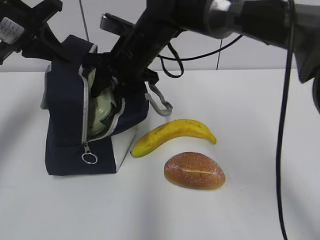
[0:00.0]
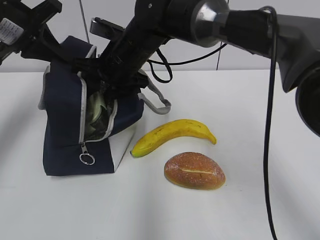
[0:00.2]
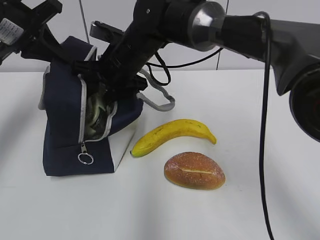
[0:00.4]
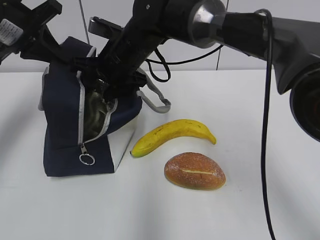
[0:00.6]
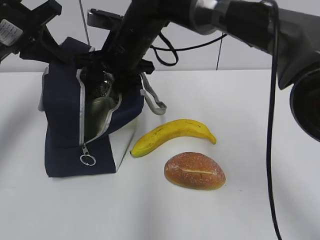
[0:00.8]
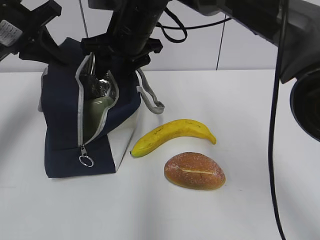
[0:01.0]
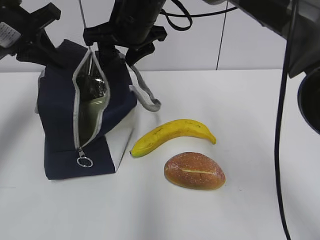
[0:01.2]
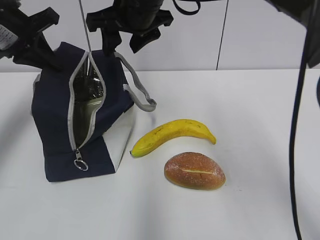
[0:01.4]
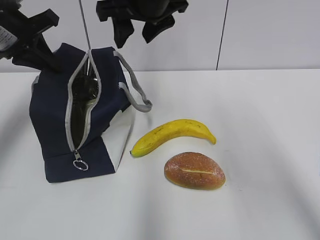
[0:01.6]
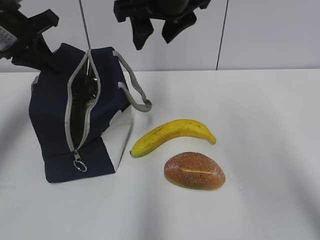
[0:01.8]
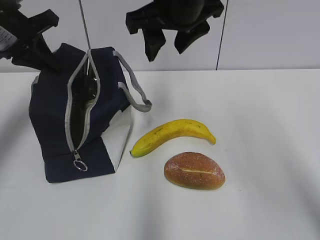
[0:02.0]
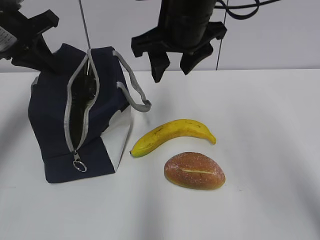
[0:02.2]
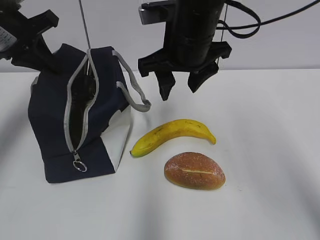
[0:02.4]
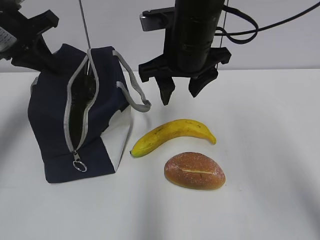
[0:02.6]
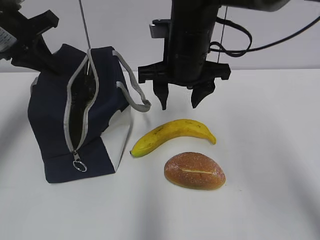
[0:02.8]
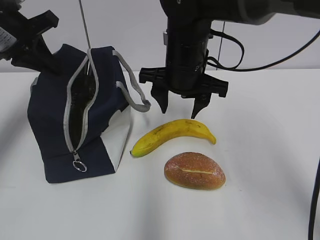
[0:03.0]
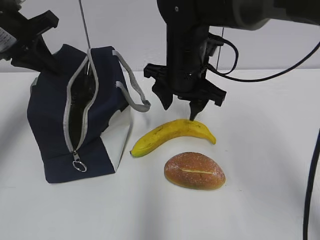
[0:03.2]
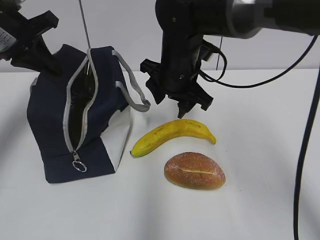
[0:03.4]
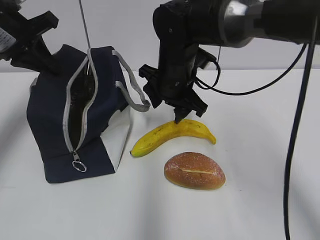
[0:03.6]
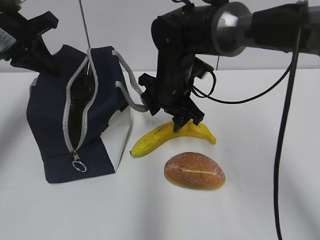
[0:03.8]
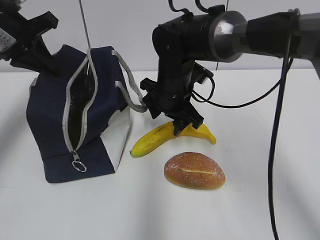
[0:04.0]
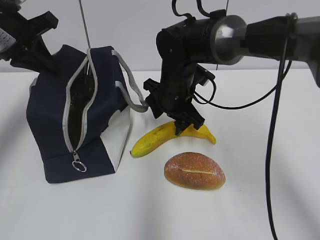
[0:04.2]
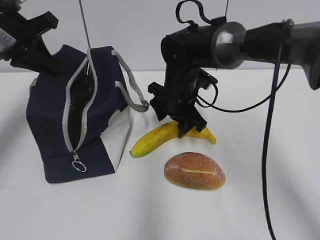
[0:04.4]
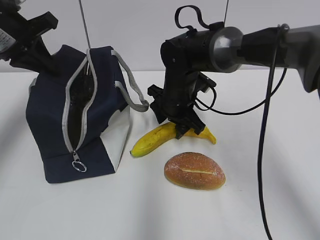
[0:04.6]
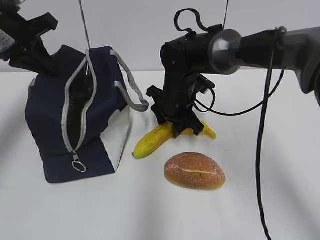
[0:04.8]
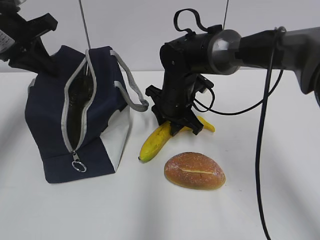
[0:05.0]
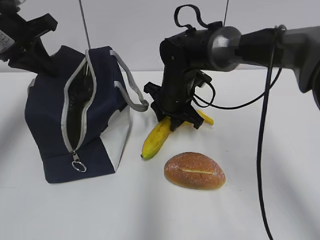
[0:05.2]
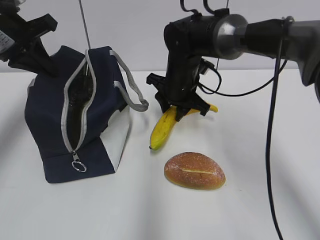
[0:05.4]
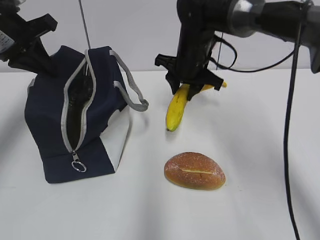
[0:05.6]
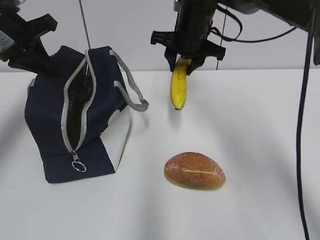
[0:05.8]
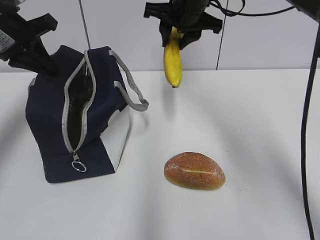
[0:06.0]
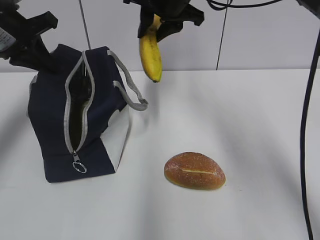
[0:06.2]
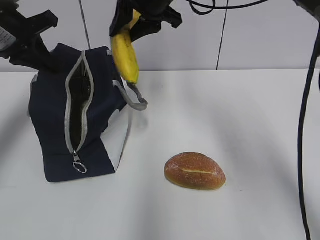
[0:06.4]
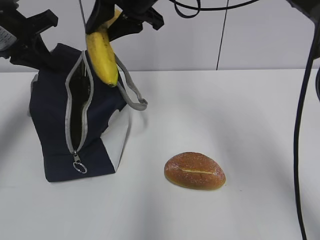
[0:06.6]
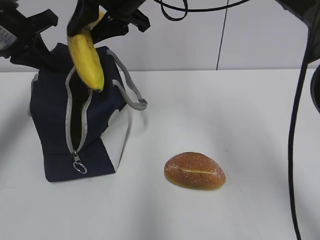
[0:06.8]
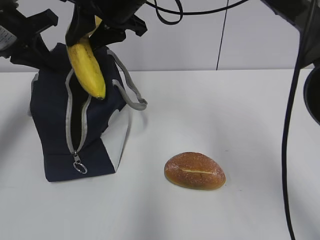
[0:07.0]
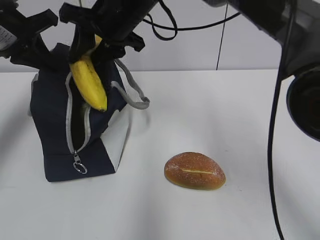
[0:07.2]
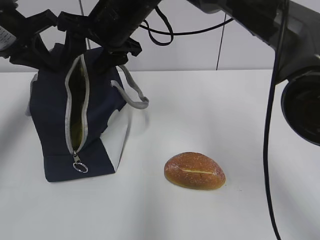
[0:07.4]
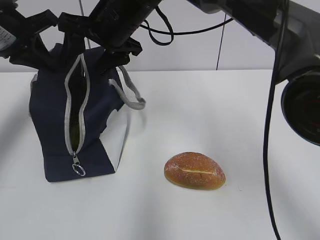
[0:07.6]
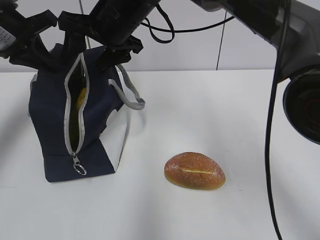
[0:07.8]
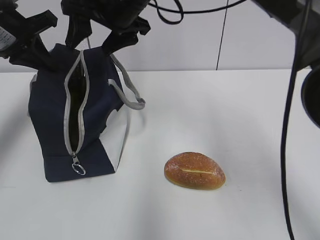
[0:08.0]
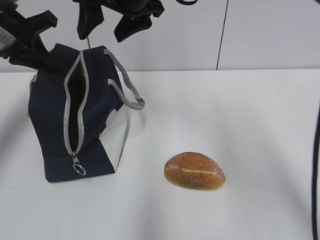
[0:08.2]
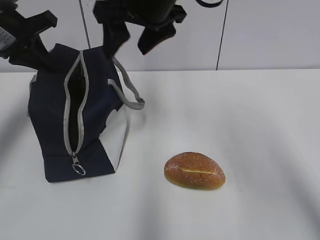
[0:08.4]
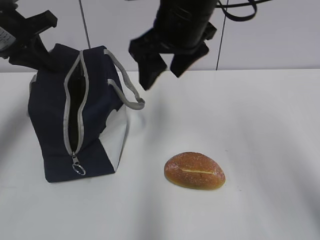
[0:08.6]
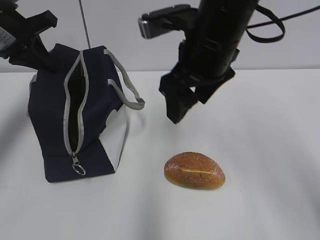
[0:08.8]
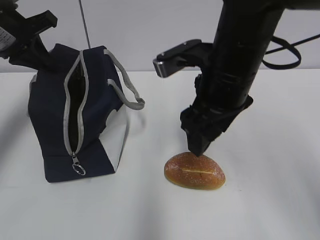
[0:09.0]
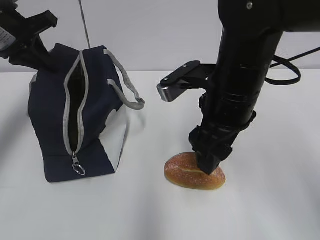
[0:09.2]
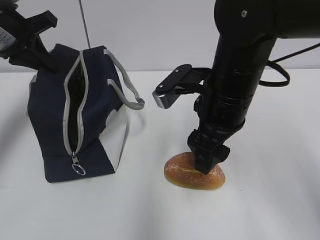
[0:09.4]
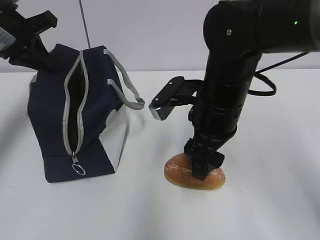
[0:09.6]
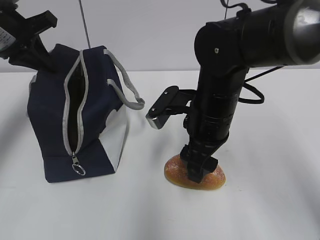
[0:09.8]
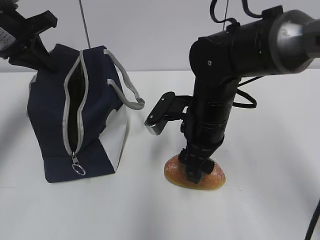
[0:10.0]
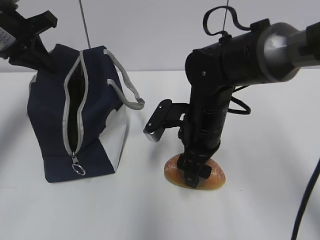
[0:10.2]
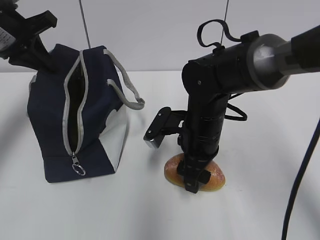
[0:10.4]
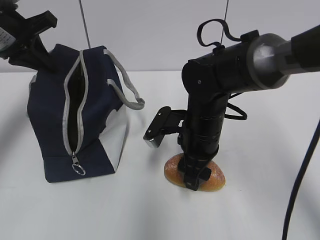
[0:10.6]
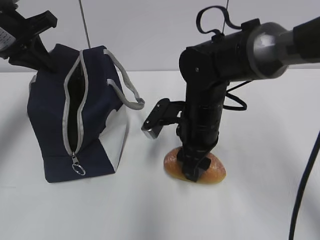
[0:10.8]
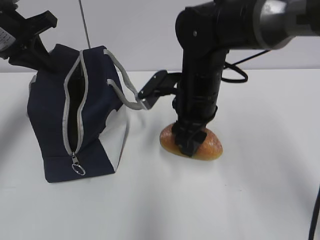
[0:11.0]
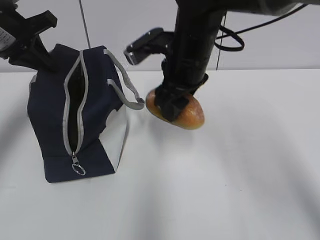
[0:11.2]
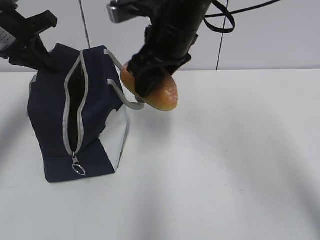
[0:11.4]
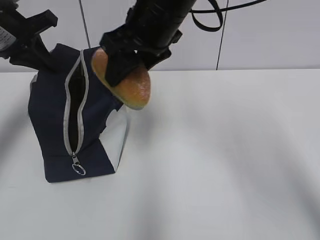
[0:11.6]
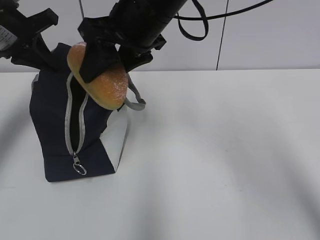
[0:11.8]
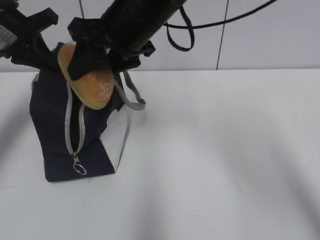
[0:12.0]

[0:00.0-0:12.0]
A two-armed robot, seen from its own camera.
0:00.0 to 0:01.6: The right gripper travels upward by roughly 10 cm.
0:01.6 to 0:03.0: The right gripper heads downward, covering approximately 10 cm.
0:03.0 to 0:04.4: The right gripper goes approximately 10 cm downward.
0:04.4 to 0:06.0: The right gripper moves upward, approximately 15 cm, and closes.
0:06.0 to 0:07.6: The right gripper moves to the left, roughly 10 cm, and opens up.
0:07.6 to 0:09.0: The right gripper travels to the right and backward by roughly 15 cm.
0:09.0 to 0:10.4: The right gripper shifts some 15 cm downward.
0:10.4 to 0:12.0: The right gripper is displaced upward and to the left by some 20 cm.

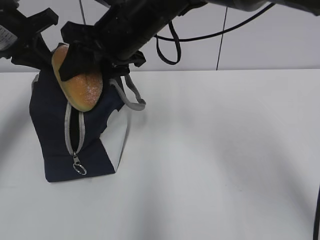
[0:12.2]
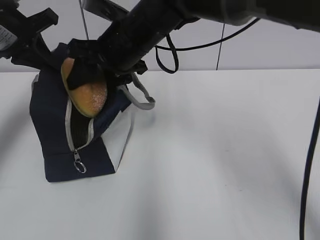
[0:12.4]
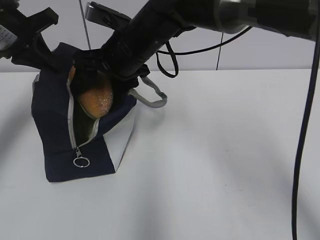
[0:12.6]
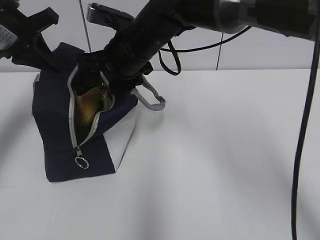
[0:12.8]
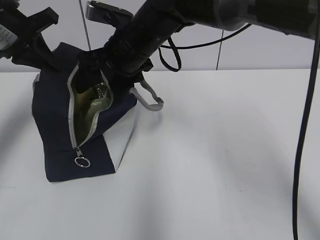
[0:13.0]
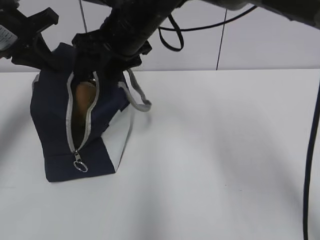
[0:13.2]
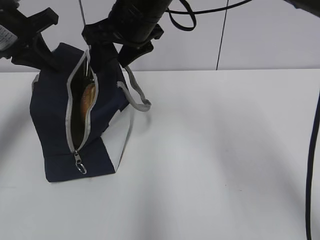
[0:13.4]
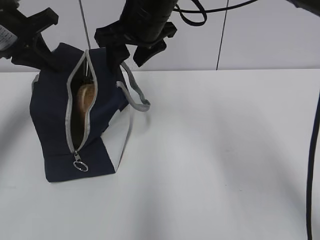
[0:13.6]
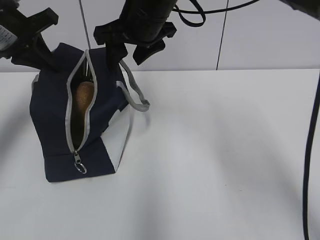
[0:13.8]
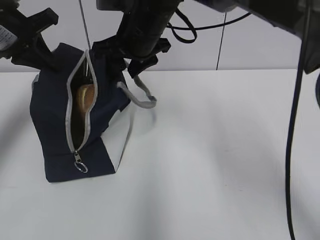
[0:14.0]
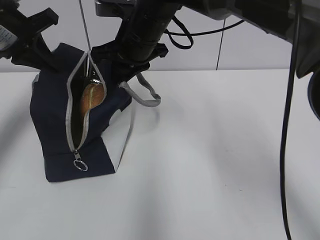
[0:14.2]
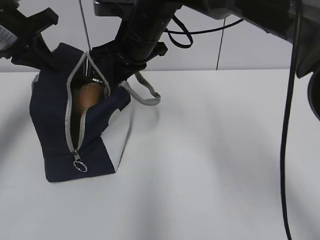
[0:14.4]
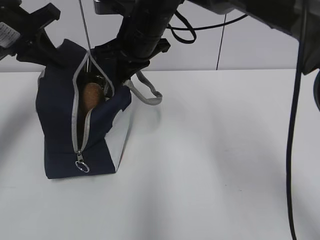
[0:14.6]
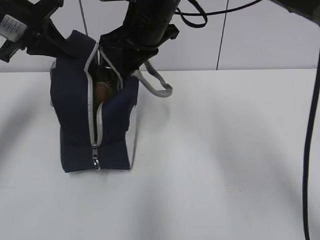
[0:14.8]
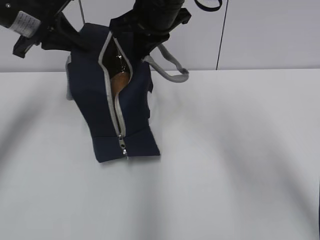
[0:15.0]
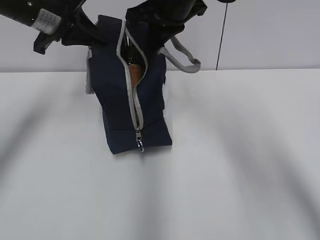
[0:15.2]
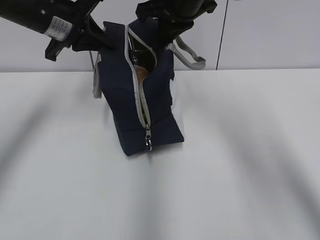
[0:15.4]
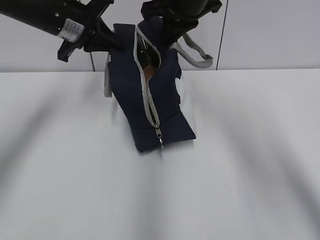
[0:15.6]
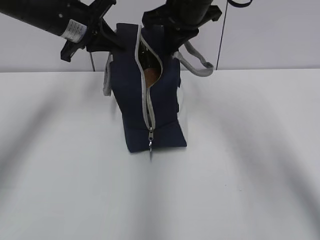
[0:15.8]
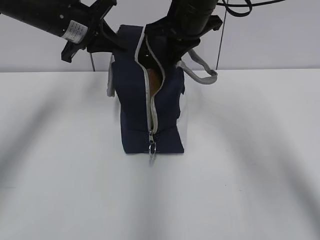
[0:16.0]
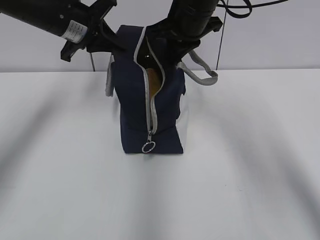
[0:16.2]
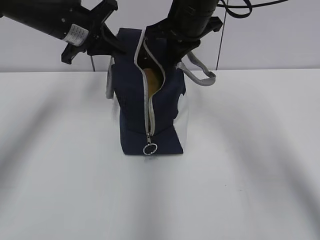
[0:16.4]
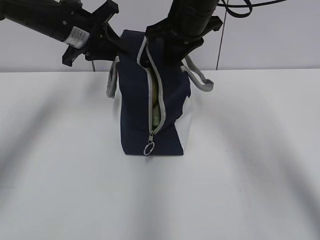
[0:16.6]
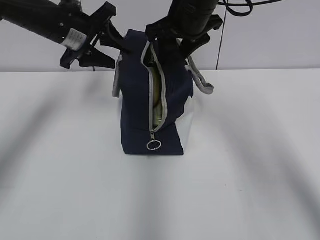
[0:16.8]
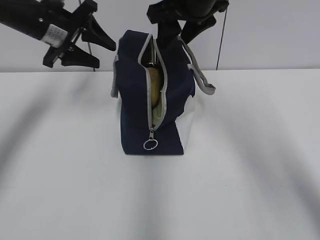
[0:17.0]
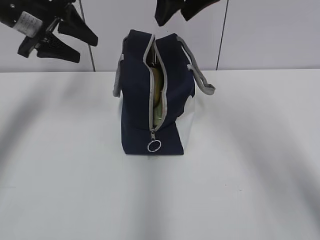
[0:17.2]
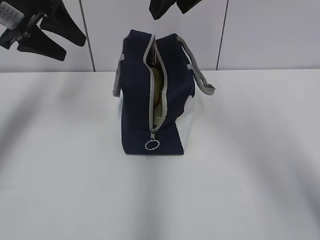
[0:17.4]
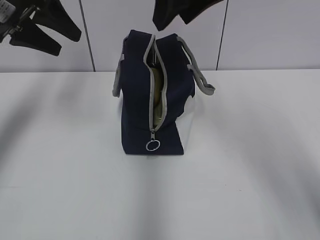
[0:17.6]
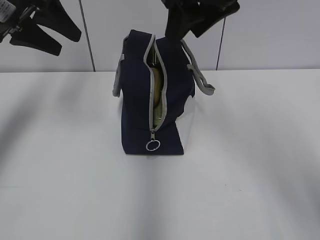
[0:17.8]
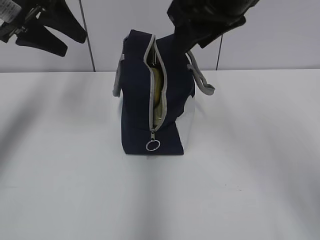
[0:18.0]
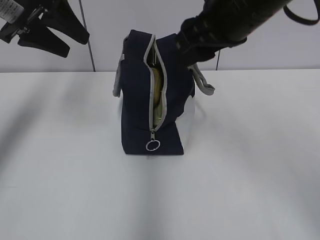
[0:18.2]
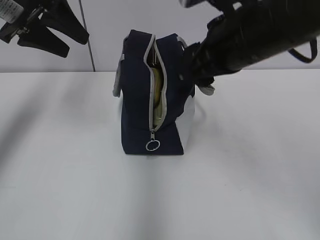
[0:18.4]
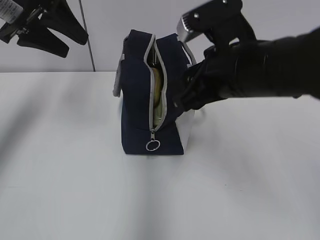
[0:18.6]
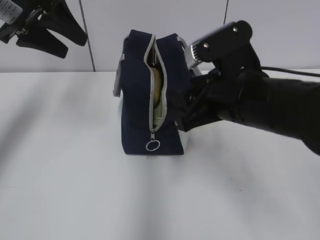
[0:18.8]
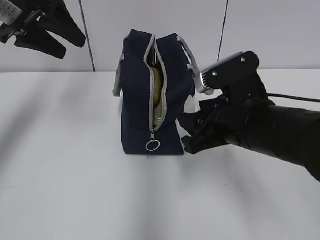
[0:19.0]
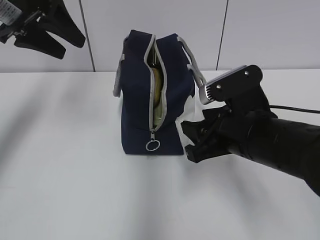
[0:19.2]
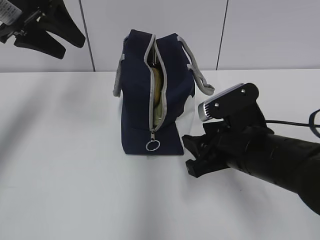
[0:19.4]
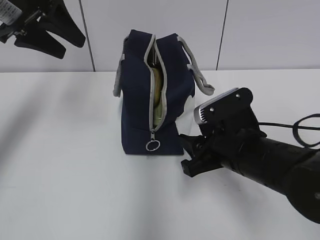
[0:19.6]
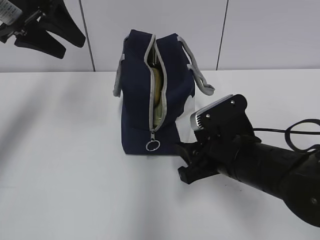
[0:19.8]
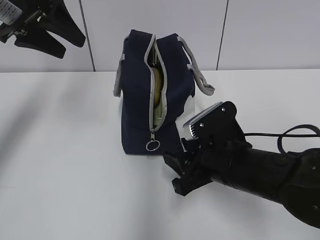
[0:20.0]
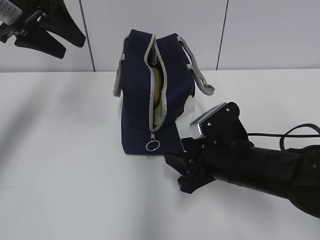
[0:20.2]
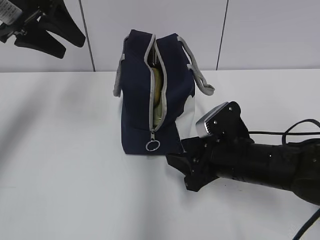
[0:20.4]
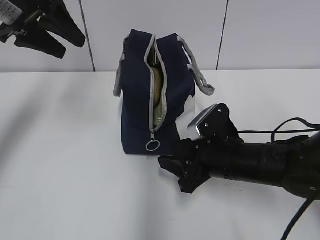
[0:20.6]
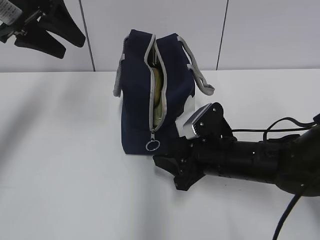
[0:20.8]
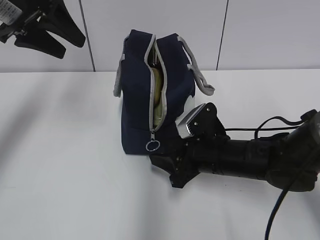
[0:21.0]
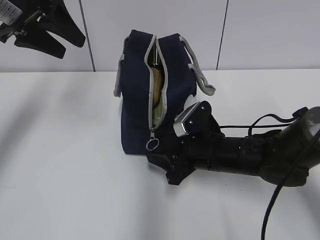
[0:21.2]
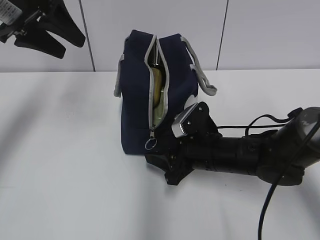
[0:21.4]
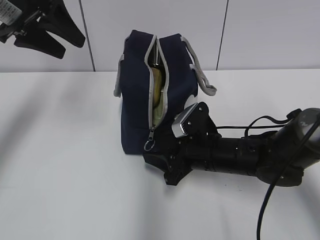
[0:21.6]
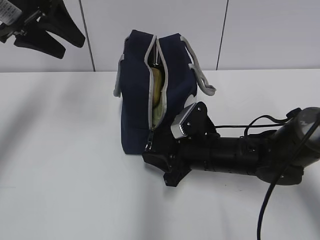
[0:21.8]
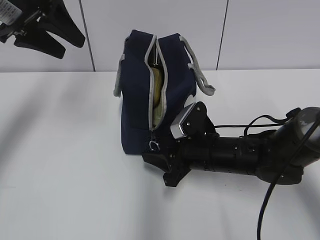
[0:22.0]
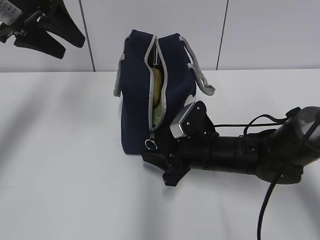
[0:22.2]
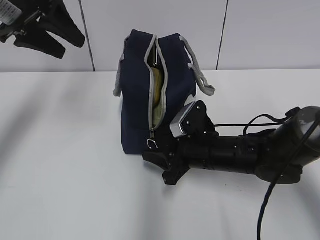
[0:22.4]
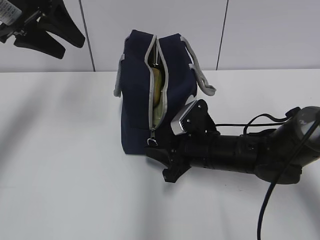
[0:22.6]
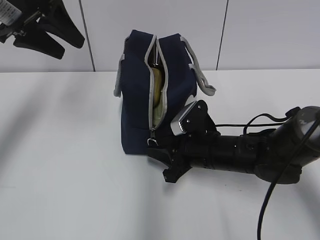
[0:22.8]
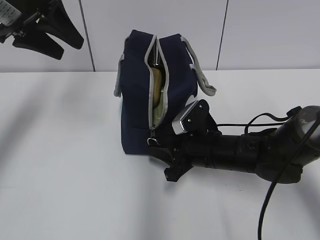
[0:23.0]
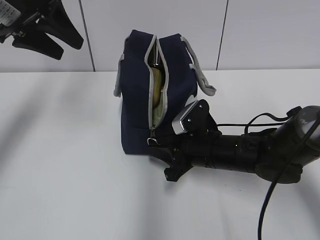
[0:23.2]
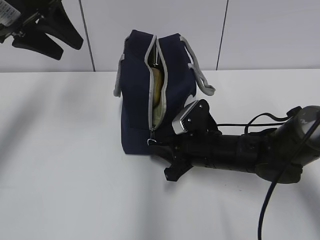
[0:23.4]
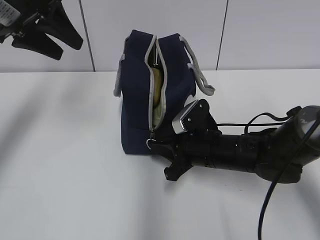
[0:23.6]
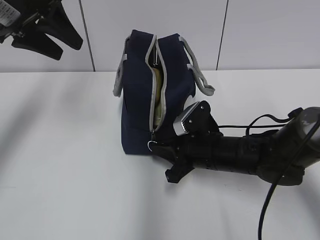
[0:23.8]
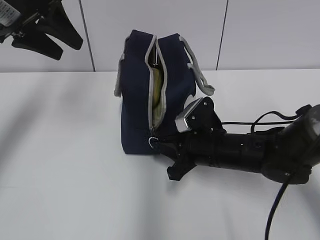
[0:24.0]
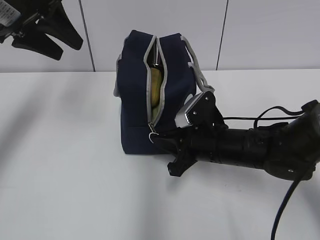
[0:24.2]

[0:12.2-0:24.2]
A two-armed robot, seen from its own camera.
0:13.8 to 0:15.2: The right gripper closes up; the left gripper goes roughly 5 cm to the right.
0:15.2 to 0:16.6: The left gripper shifts by roughly 5 cm, and opens up.
0:16.6 to 0:18.2: The right gripper moves backward, roughly 10 cm, and opens; the left gripper heads upward and backward, covering roughly 10 cm, and opens.
0:18.2 to 0:19.8: The right gripper goes about 20 cm downward.
0:19.8 to 0:21.2: The right gripper shifts about 5 cm forward.
0:21.2 to 0:22.6: The grippers move only a little.
0:22.6 to 0:24.2: The right gripper closes its fingers.
